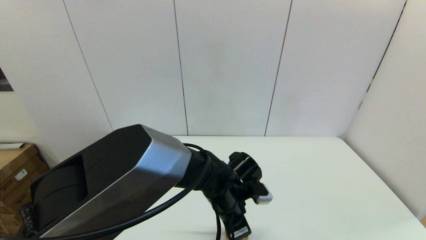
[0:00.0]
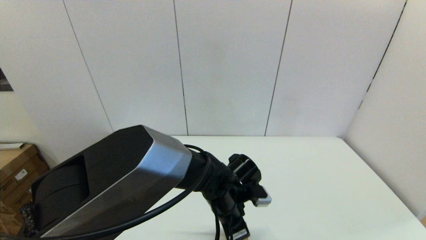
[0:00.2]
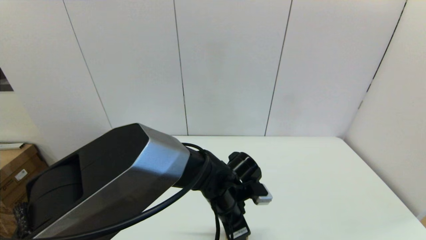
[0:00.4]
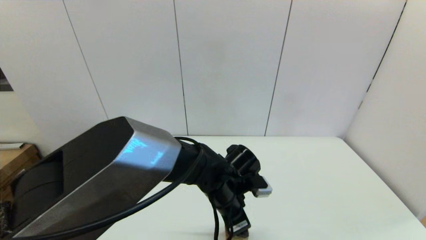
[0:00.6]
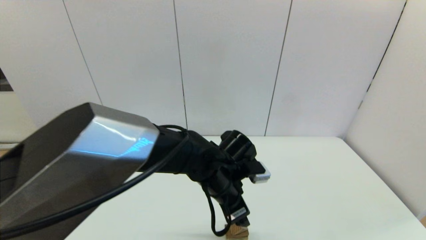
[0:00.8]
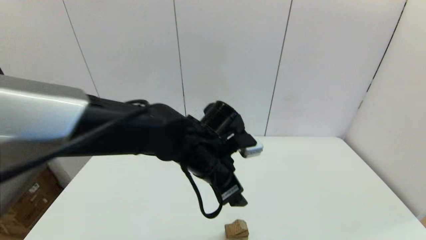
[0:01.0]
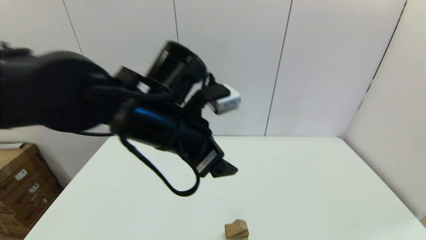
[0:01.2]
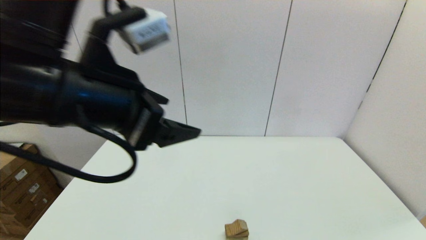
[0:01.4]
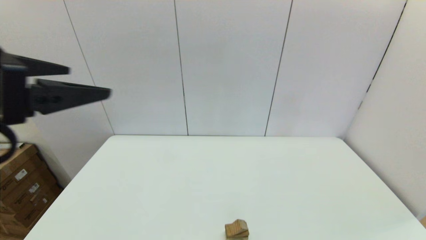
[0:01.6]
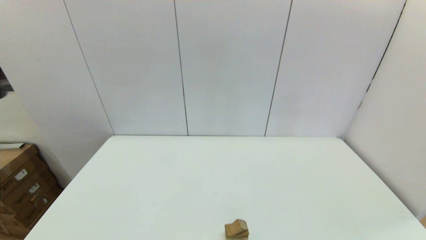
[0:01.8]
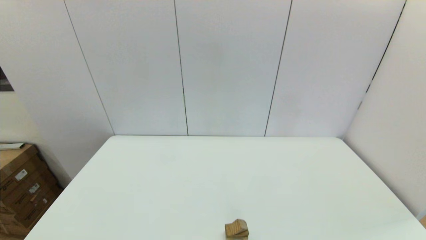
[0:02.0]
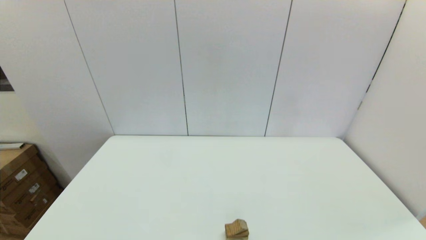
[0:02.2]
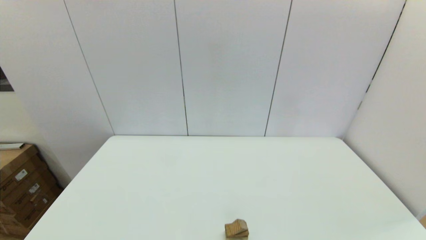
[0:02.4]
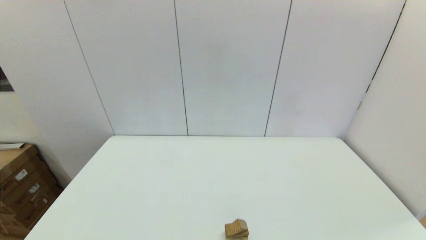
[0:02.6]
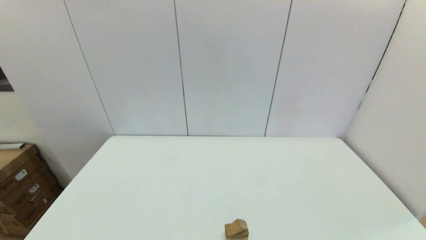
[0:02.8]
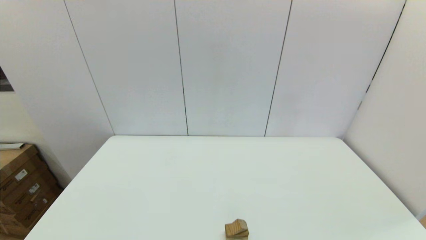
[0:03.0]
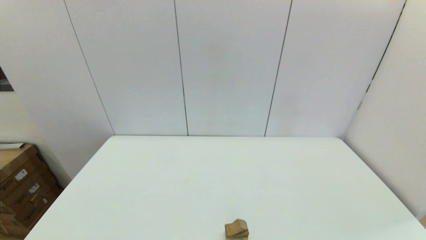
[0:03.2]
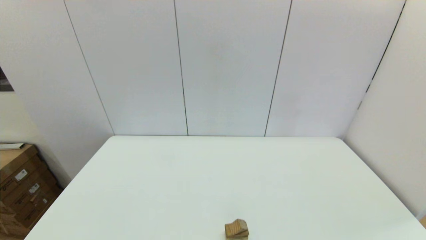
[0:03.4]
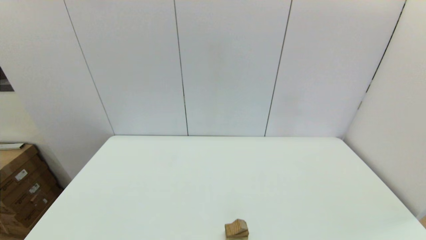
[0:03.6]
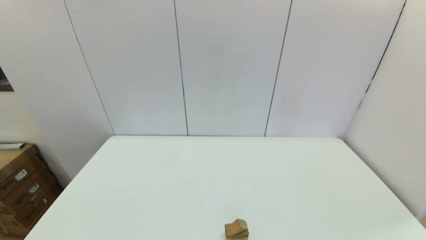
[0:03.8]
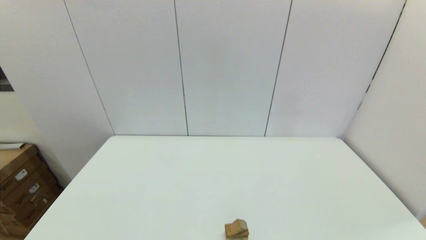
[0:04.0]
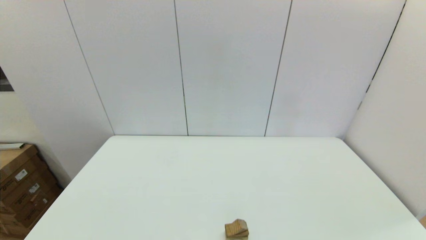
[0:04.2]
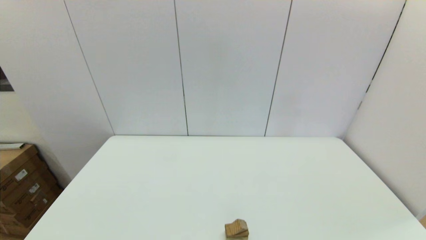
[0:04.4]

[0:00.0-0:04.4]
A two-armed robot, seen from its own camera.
Task of the whole recording: place the arched building blocks in the center of the table, set up the rectangular building blocks, and then set up the triangular building blocks.
0:00.0 to 0:01.4: The left gripper shifts approximately 35 cm upward and to the left, and opens.
0:01.4 to 0:03.0: The left gripper moves downward, backward and to the left, approximately 35 cm.
